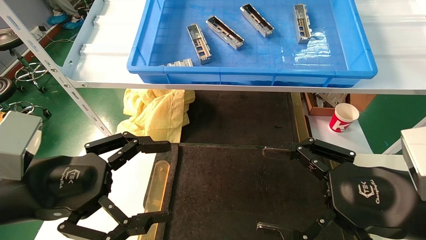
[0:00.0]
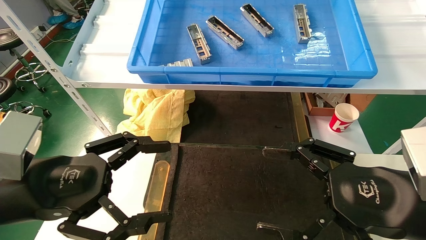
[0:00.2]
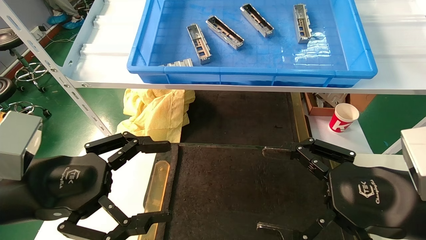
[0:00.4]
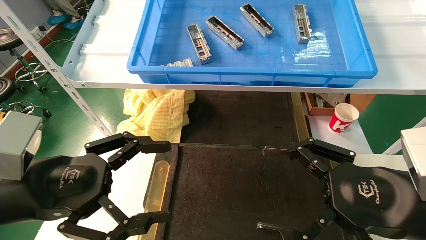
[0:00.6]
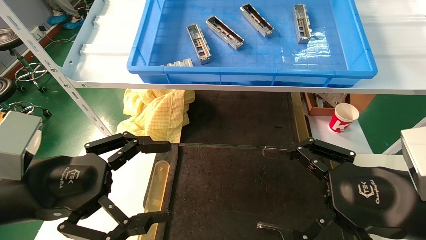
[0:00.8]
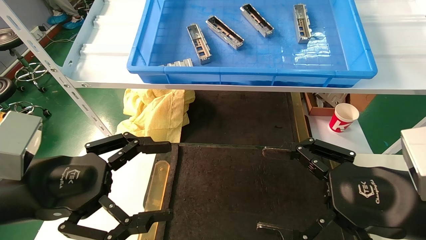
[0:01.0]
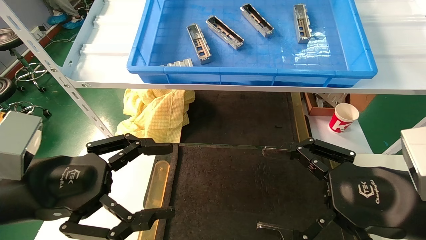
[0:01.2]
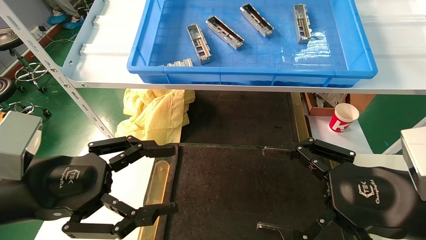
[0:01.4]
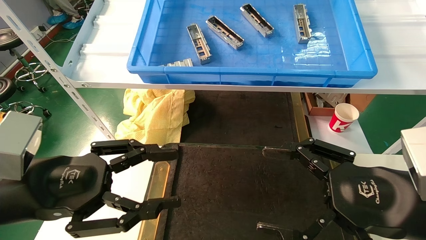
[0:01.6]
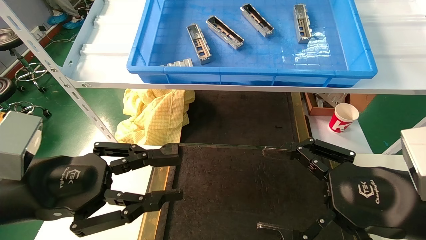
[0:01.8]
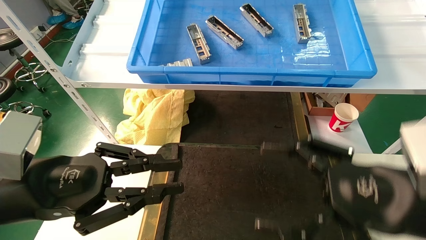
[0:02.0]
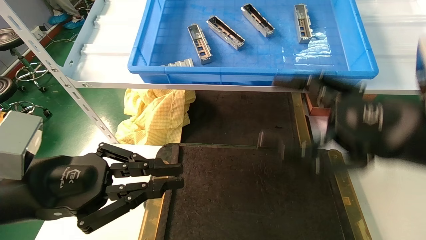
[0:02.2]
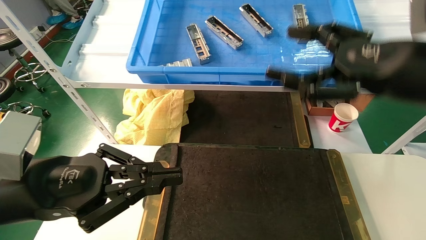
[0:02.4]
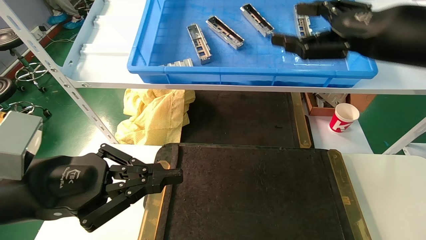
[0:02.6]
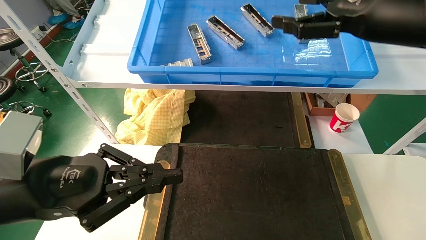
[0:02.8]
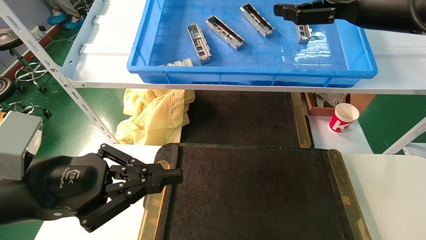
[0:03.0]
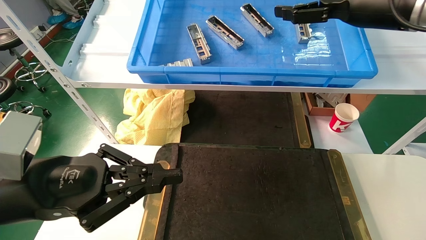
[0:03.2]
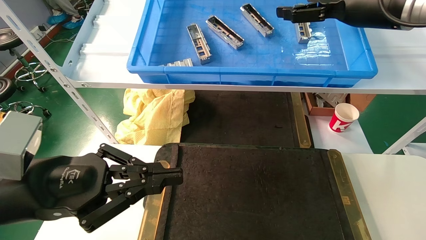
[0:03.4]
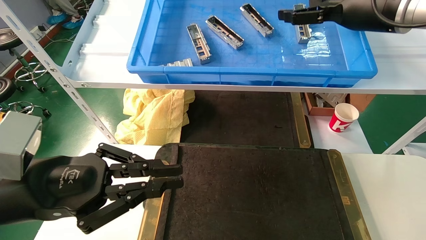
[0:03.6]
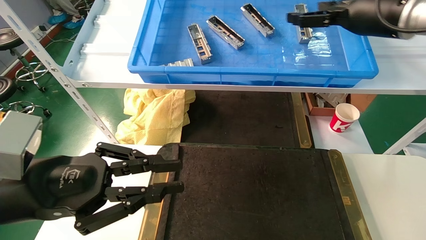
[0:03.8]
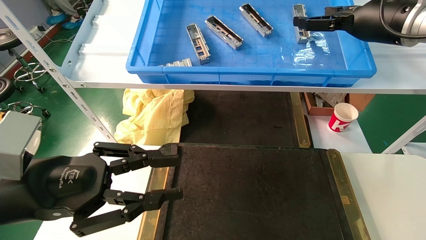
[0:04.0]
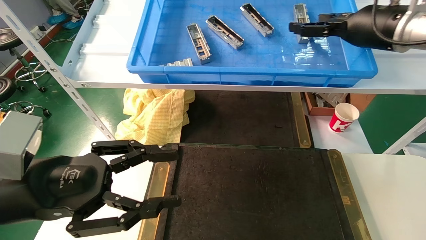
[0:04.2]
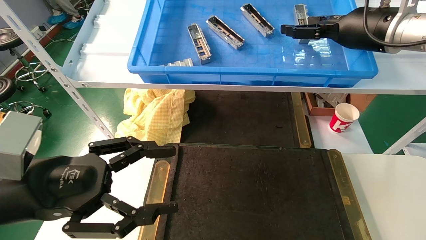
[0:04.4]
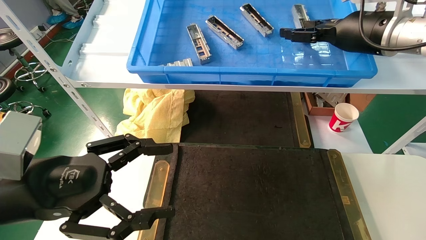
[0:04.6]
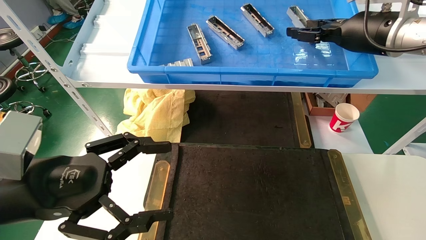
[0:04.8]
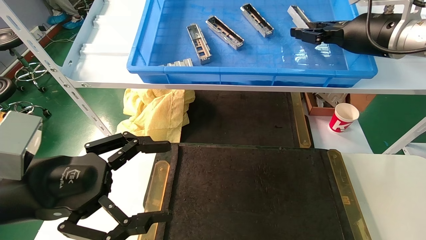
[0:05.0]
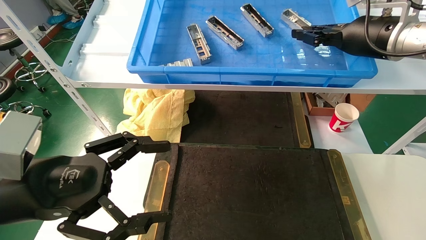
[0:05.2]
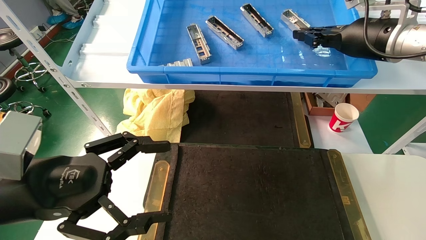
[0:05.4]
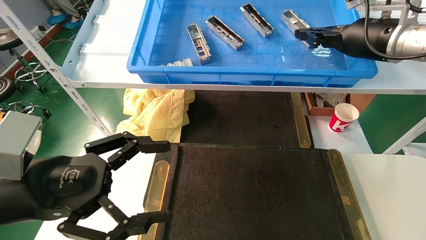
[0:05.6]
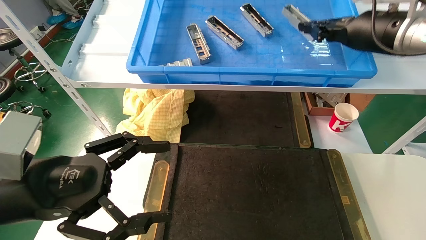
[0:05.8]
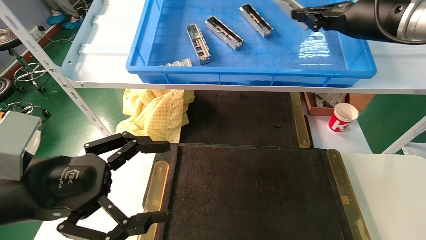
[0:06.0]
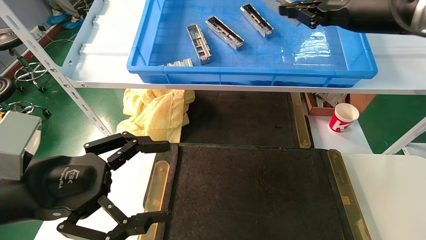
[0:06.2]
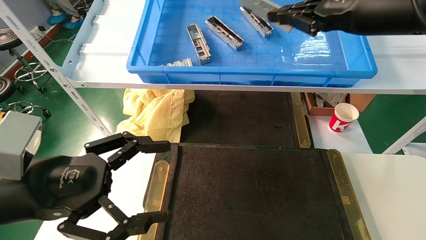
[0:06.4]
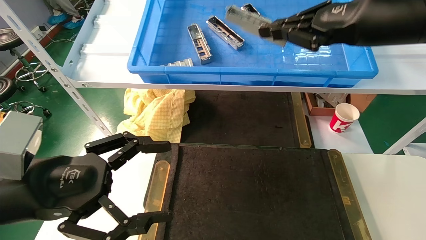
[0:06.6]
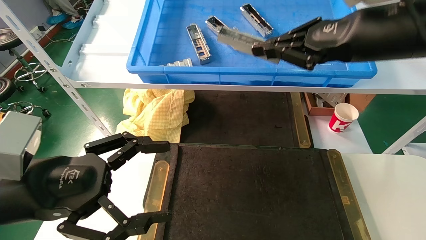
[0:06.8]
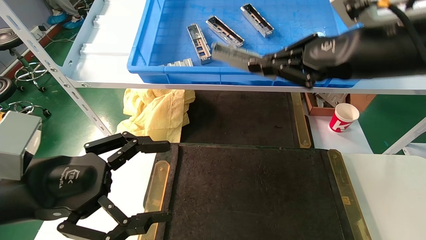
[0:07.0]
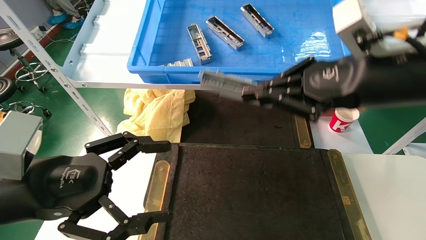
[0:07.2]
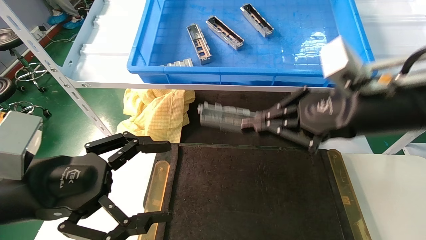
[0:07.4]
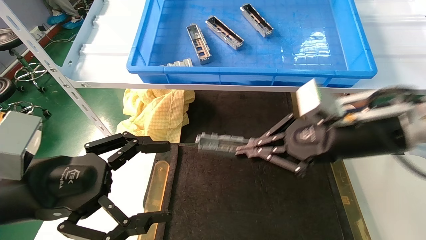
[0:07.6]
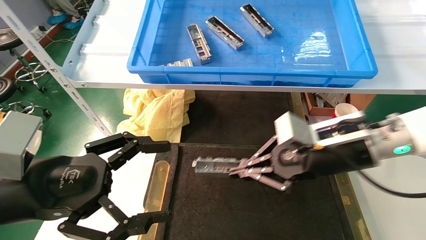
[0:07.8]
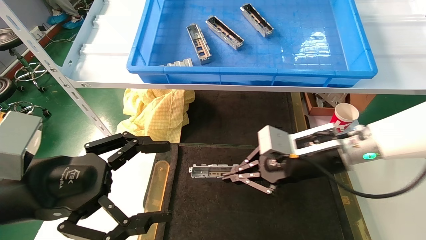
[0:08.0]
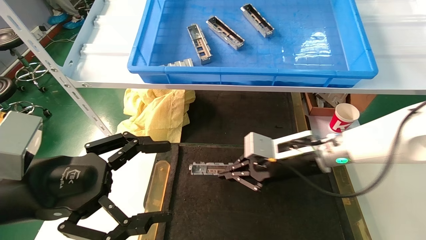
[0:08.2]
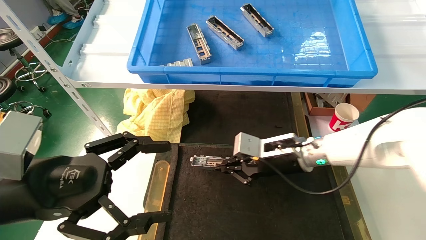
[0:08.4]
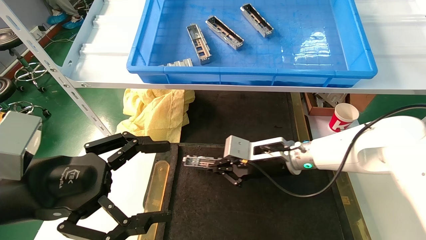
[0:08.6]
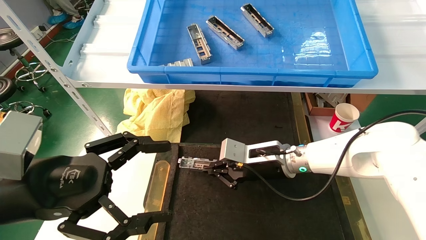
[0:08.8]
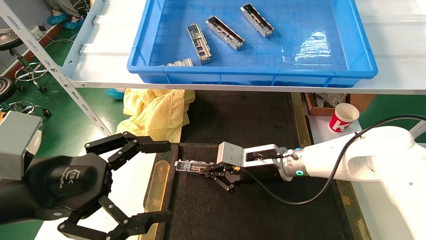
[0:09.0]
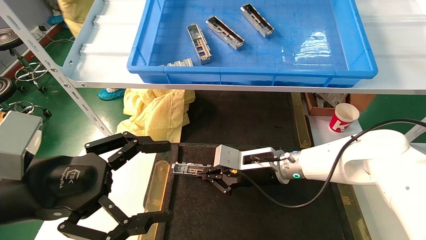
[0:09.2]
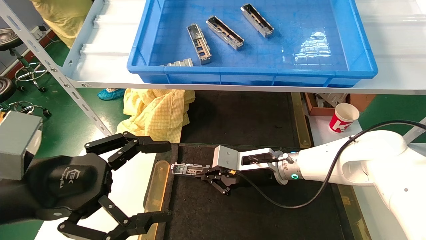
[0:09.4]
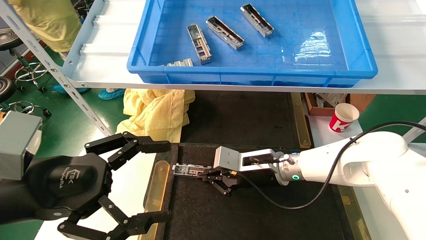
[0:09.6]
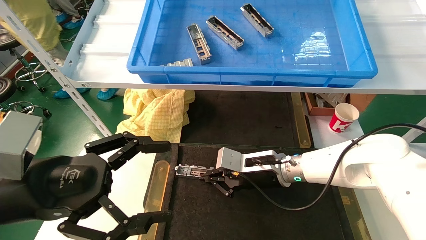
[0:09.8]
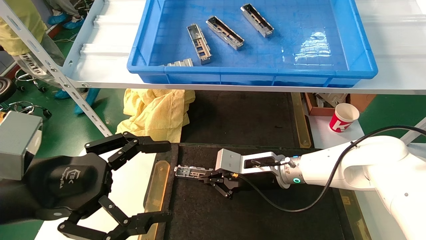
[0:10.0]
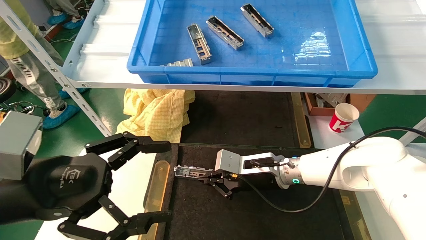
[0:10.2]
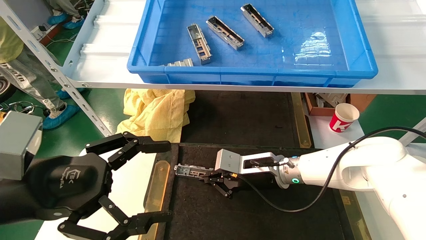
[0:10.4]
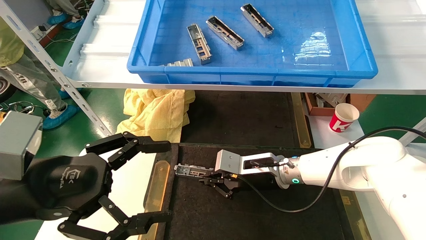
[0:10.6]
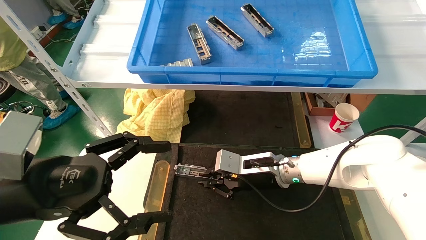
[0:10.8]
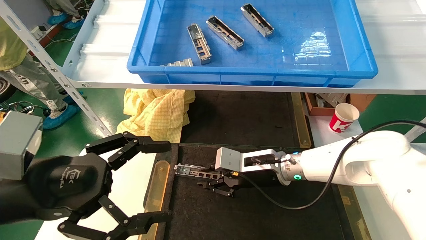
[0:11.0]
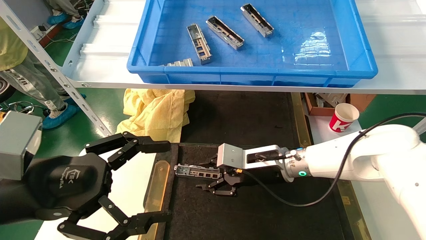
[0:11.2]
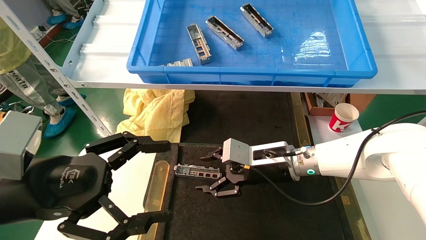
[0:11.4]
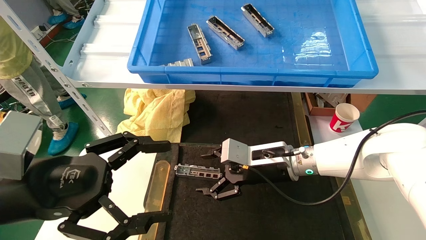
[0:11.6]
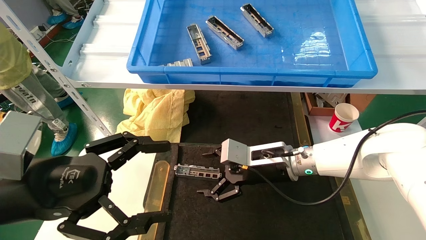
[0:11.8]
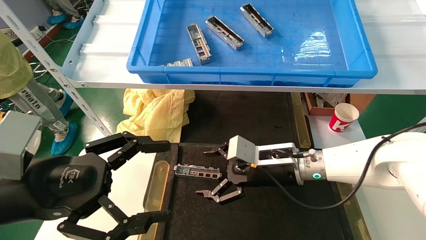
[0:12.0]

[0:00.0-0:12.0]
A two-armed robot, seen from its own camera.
Task of the whole recording: grasp the part and place them on the black container.
Step, 0:02.2 to 0:06.0: Pick up and lift the front USB bracket from the feeding area.
Step, 0:06.2 to 0:11.0: Place the front USB bracket into the box.
0:00.0 to 0:01.6: Both grippers stay put.
0:01.6 to 0:03.0: The right gripper travels upward and forward by some 25 cm. Meanwhile the left gripper closes its fingers.
0:03.0 to 0:04.4: The left gripper opens up, while the right gripper goes about 5 cm forward.
0:04.4 to 0:06.0: The left gripper opens its fingers. Meanwhile the right gripper closes its fingers.
0:06.0 to 0:07.6: The right gripper shifts approximately 20 cm downward, backward and to the left.
0:07.6 to 0:09.0: The right gripper heads downward, forward and to the left, covering approximately 20 cm.
0:09.0 to 0:10.4: The grippers make only small movements.
0:10.4 to 0:12.0: The right gripper shifts by roughly 5 cm, and opens its fingers.

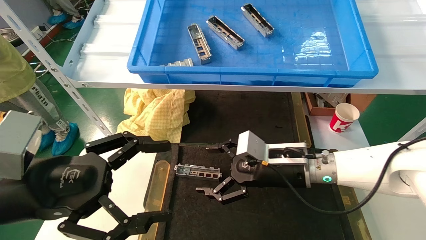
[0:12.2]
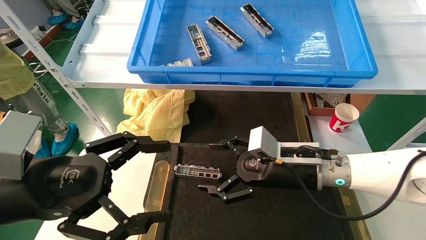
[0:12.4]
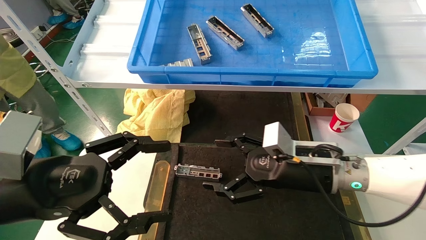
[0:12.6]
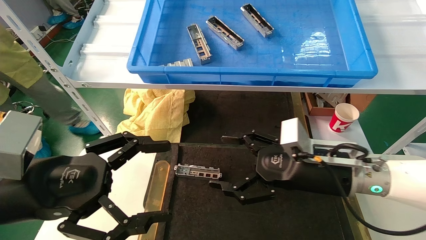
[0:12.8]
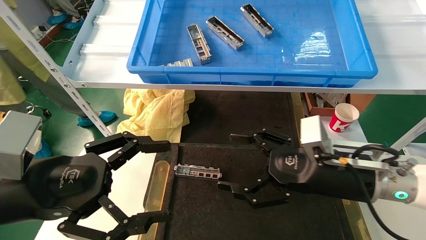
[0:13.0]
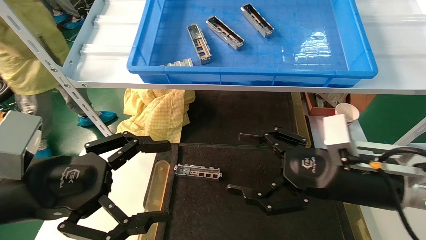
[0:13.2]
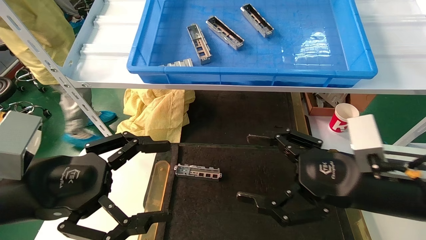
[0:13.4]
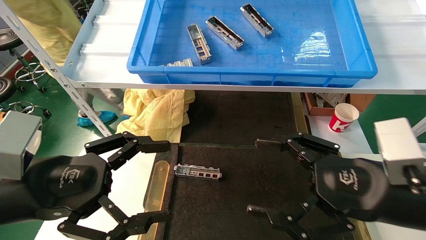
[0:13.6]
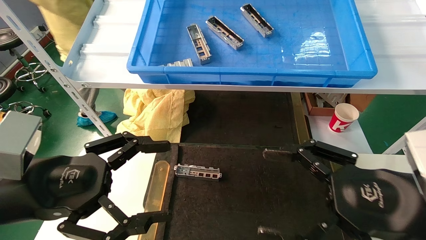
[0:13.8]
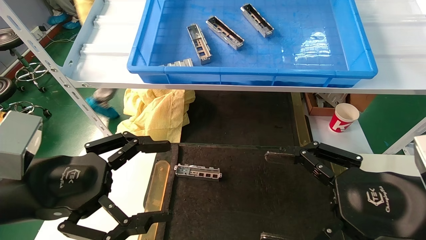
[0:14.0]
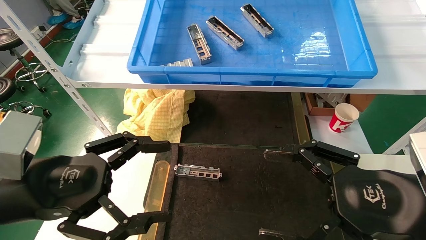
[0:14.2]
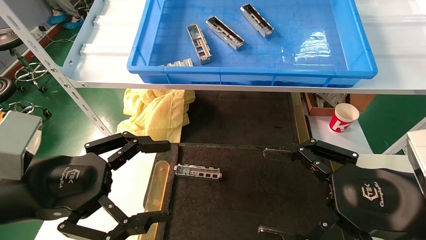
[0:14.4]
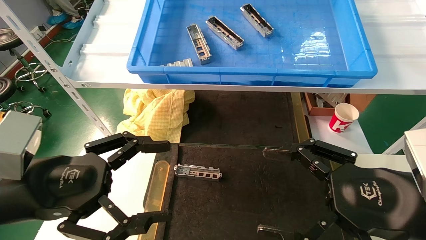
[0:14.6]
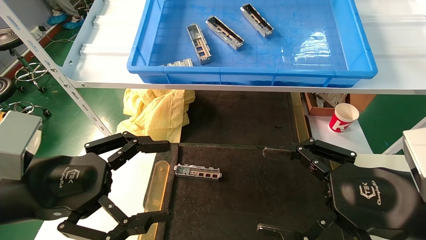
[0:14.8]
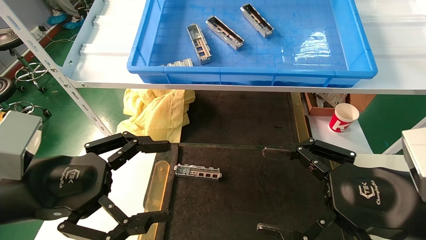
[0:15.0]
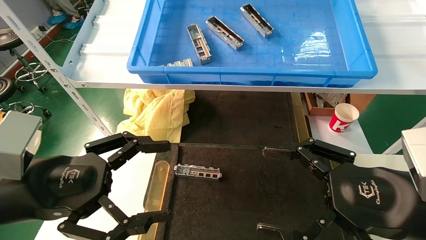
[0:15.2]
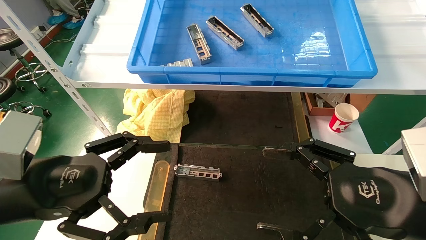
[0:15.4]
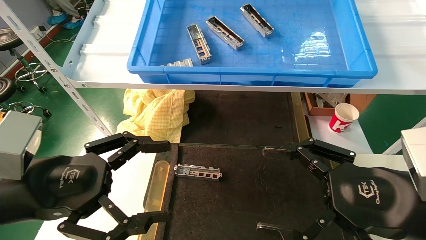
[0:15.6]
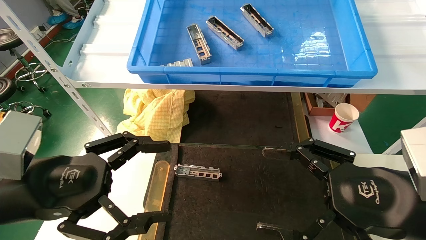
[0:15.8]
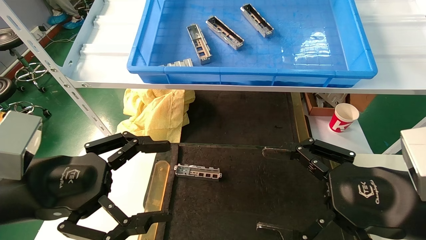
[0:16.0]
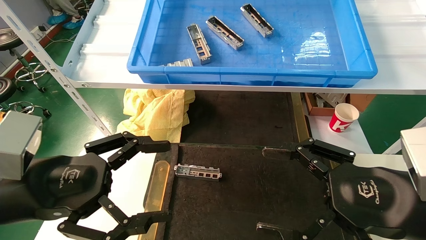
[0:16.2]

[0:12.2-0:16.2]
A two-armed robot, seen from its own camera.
Task of the whole recording: grasp the part and place them on the black container.
0:12.2 to 0:13.6: The right gripper moves backward and to the right, some 20 cm.
0:13.6 to 0:14.8: The grippers move only a little.
0:14.8 to 0:16.2: Both grippers stay put.
